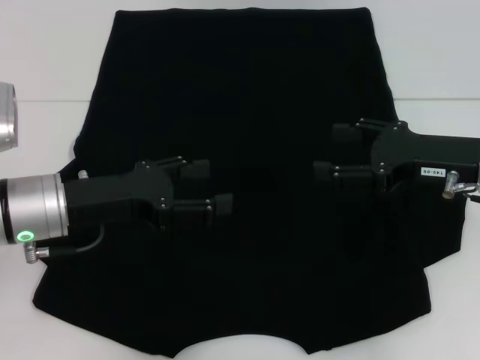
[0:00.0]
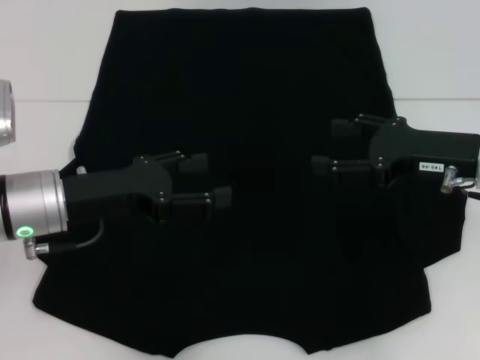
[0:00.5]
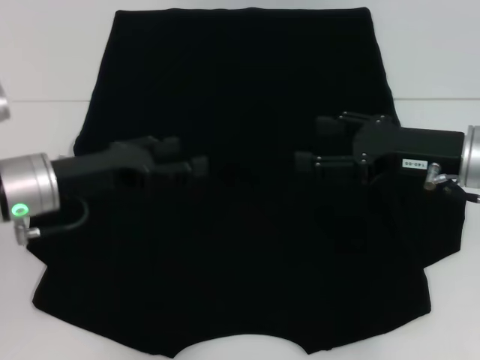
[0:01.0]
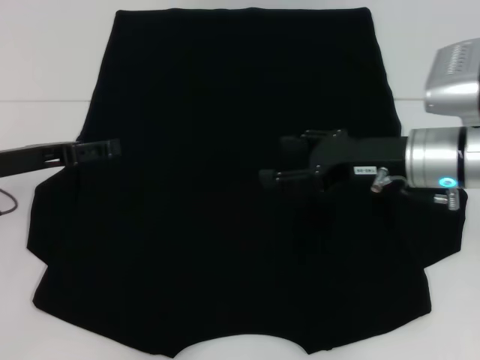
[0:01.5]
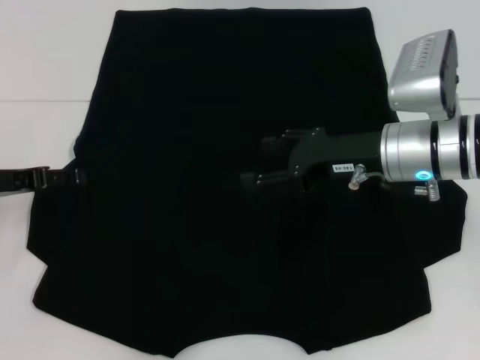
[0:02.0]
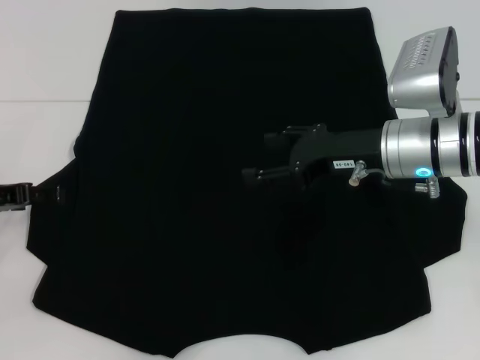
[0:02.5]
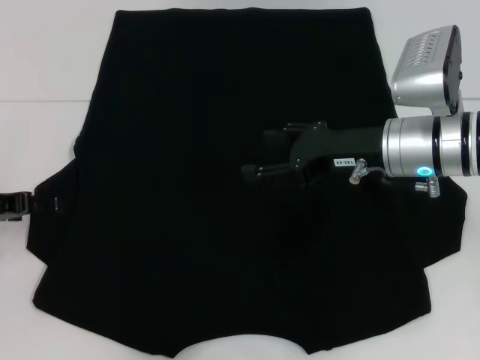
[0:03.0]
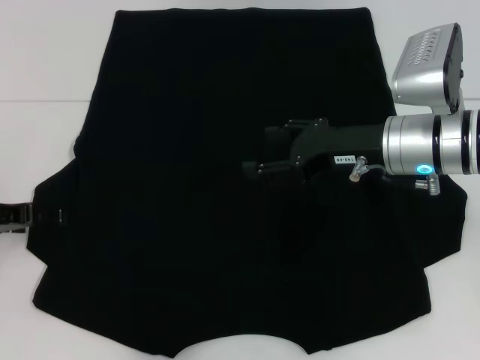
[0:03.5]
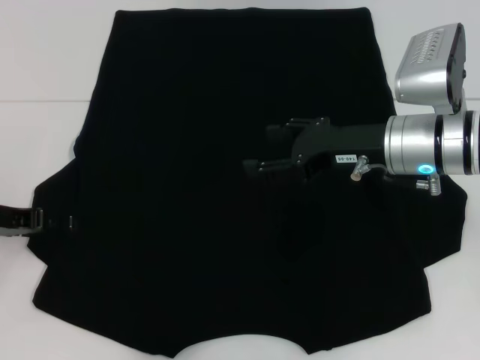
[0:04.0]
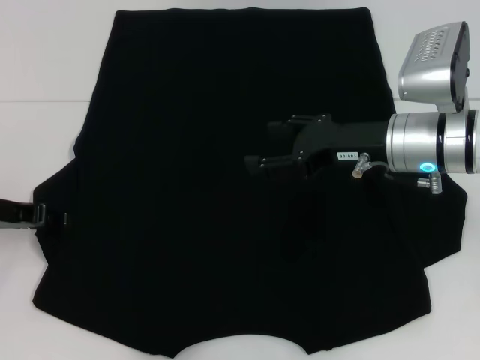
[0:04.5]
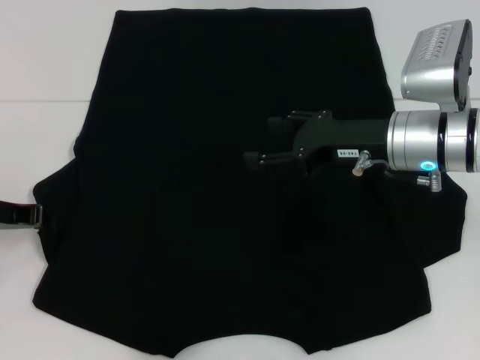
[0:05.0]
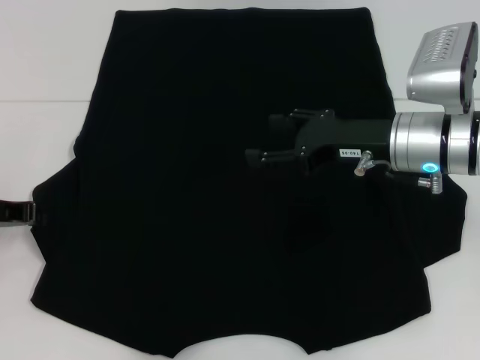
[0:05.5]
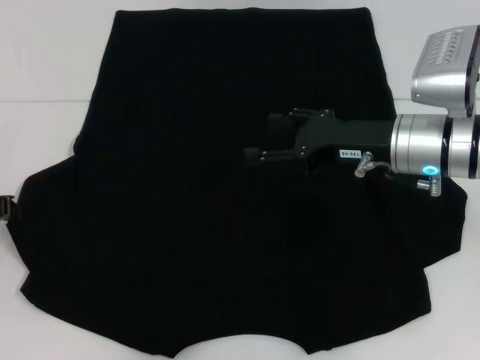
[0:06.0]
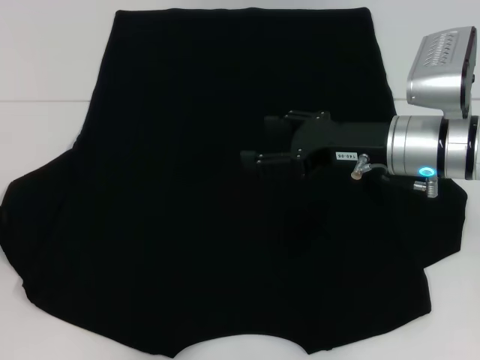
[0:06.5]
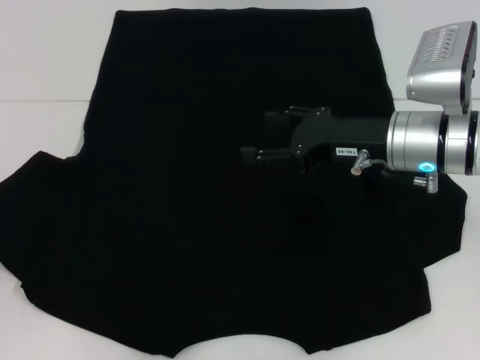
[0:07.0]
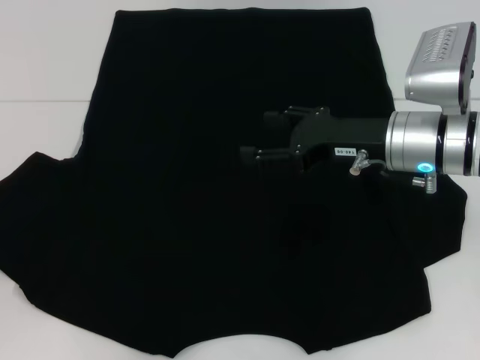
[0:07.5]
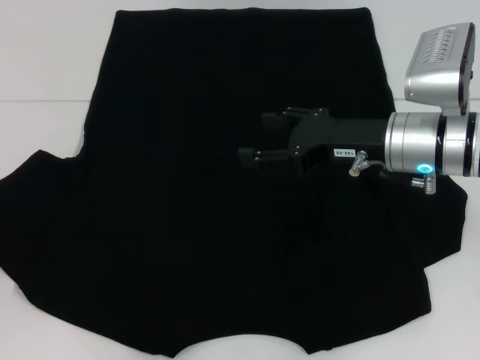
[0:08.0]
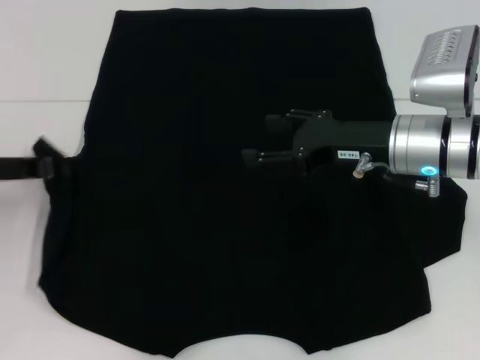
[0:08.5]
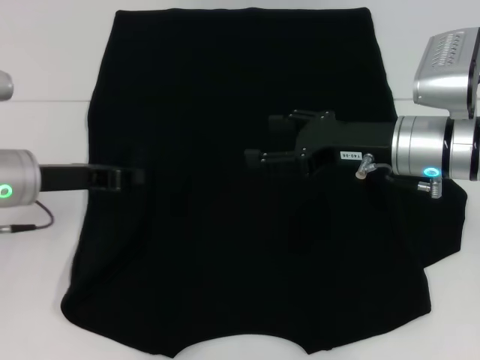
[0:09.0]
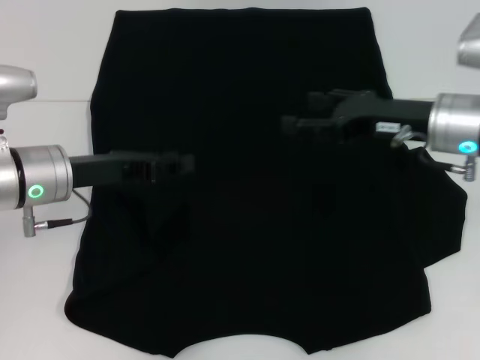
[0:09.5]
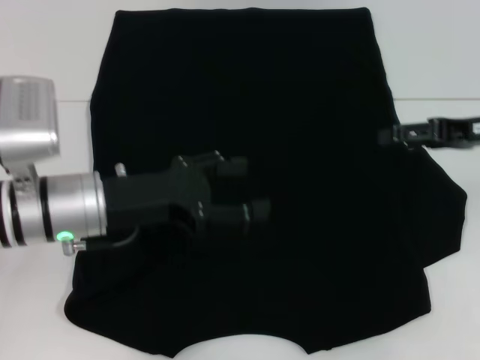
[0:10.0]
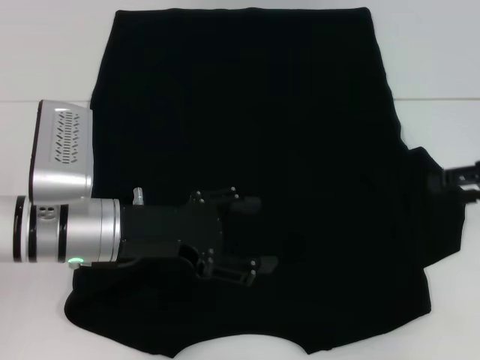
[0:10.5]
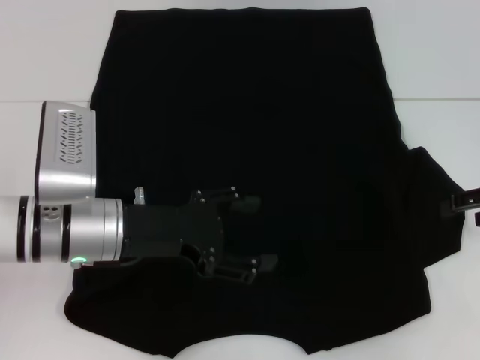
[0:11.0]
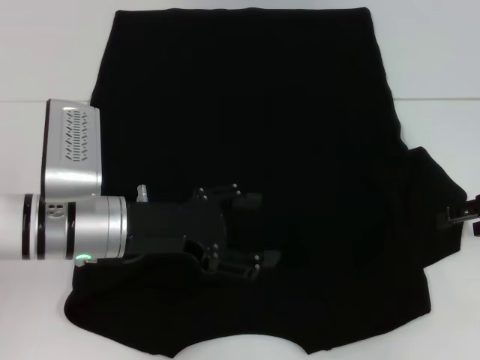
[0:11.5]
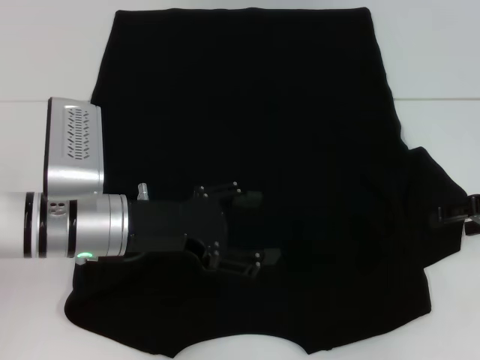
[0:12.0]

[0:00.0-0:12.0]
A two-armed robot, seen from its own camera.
Step, 0:00.0 to 0:09.5: Fold the bottom left sleeve with your left hand.
0:00.0 to 0:02.0: Both grippers travel together to the left, roughly 10 cm.
0:02.0 to 0:04.0: There are only small adjustments of the grippers.
0:04.0 to 0:06.0: The left gripper closes.
0:06.0 to 0:08.0: There are only small adjustments of the grippers.
0:08.0 to 0:10.0: Both grippers travel together to the right, some 15 cm. The left gripper opens its fingers.
0:10.0 to 0:12.0: The right gripper changes place by about 5 cm.

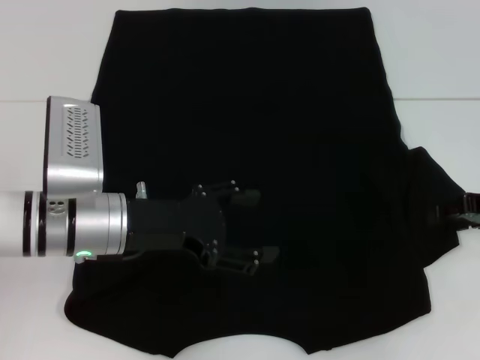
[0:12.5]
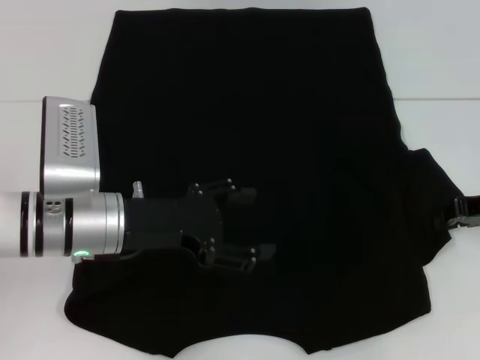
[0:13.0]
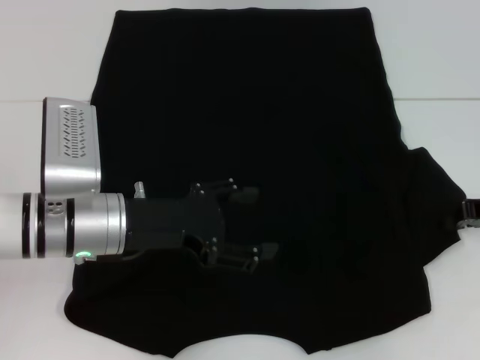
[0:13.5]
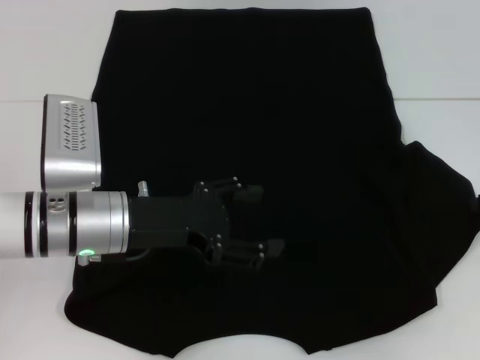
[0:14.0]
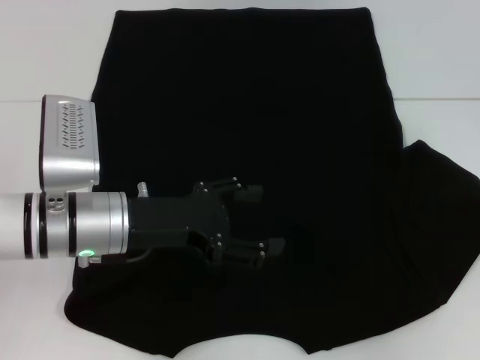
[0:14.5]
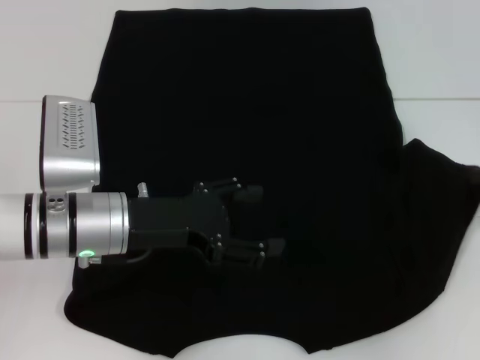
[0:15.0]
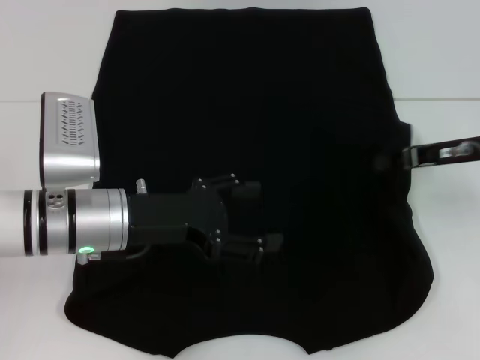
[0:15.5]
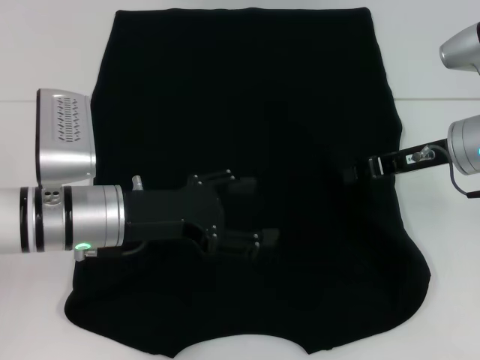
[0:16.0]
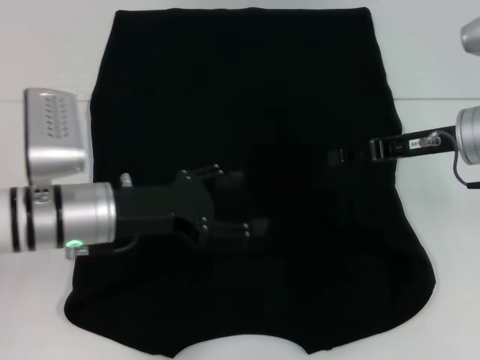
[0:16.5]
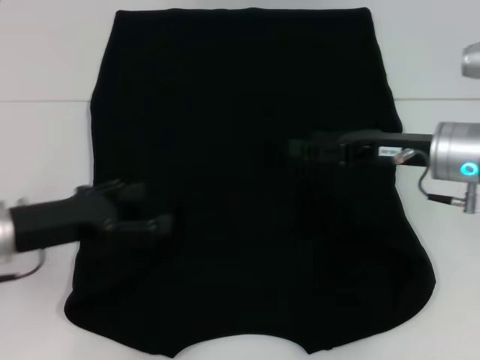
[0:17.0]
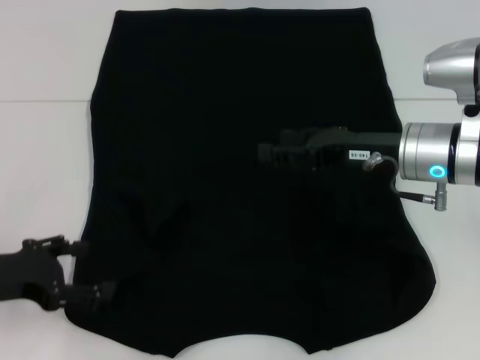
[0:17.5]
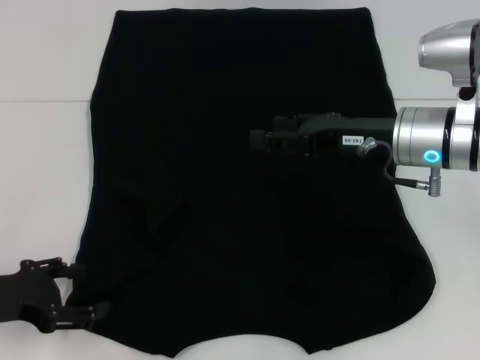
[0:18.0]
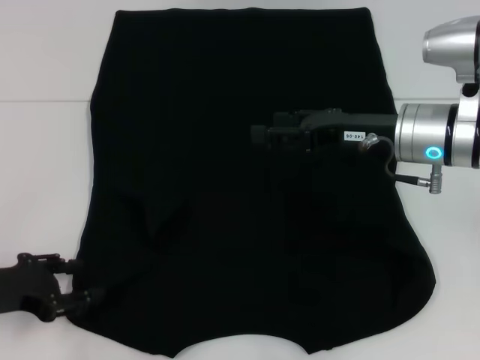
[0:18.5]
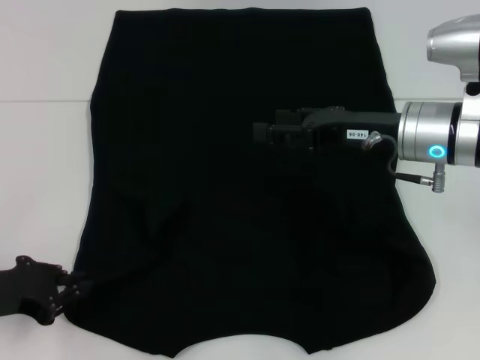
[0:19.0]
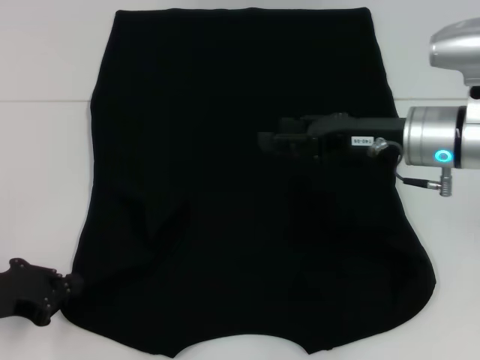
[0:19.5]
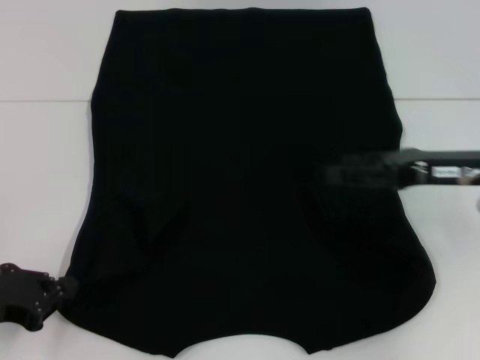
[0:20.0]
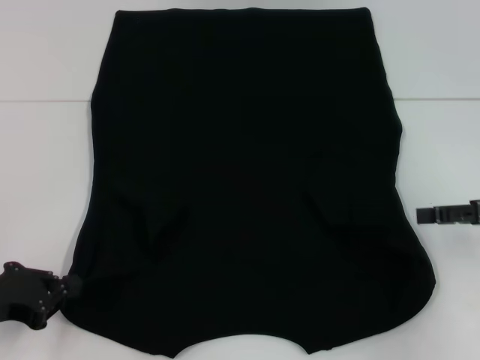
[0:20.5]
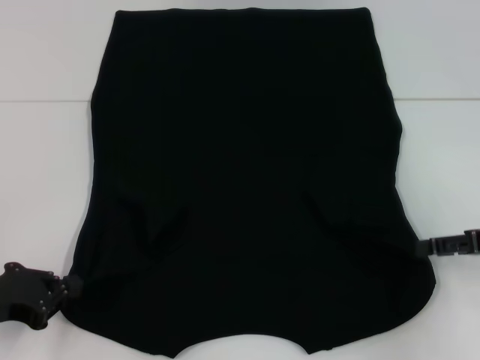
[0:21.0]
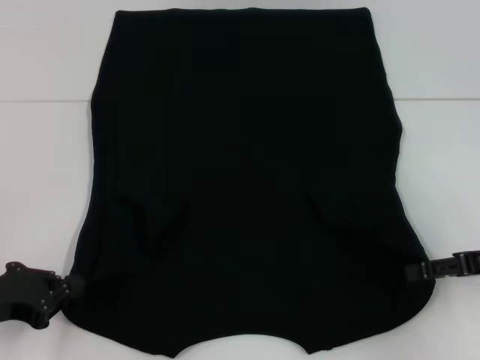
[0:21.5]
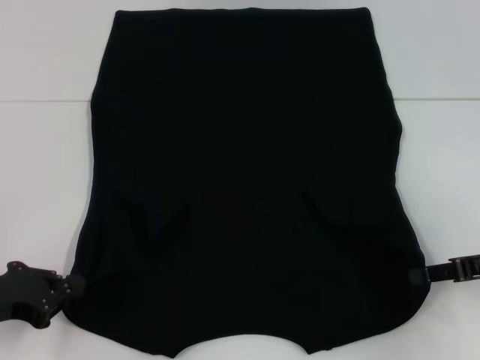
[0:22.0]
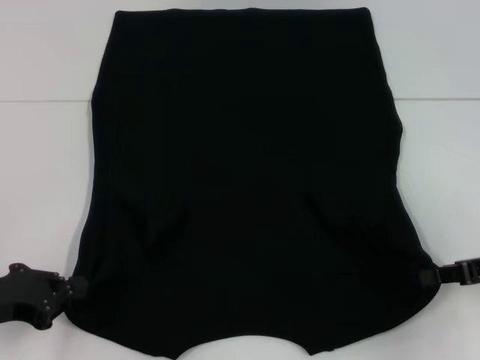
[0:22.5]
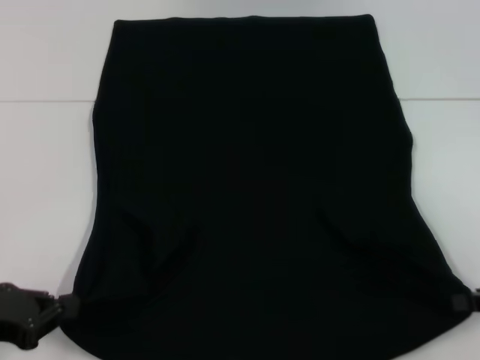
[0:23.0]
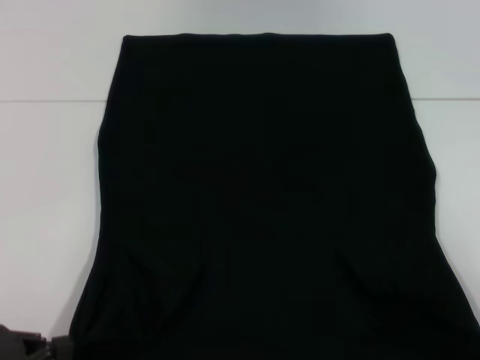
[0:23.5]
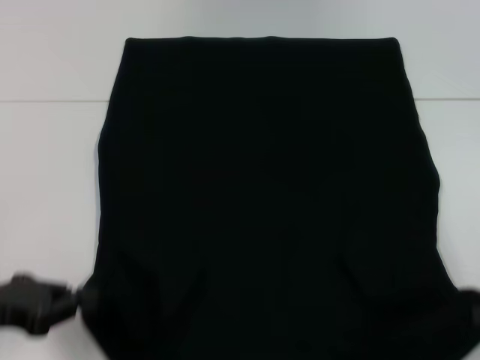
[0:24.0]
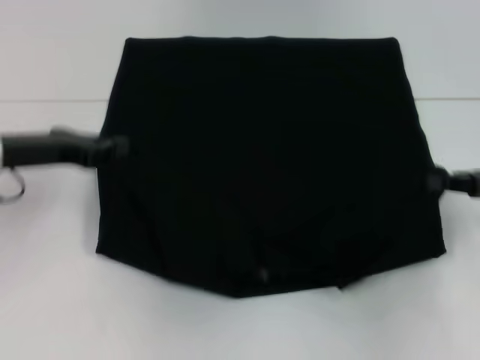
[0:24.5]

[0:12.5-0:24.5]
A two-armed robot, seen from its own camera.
Step, 0:12.5 to 0:16.5: Fold the bottom right sleeve with your right hand.
Step, 0:17.0 to 0:22.5: Grab the bottom left corner with your left hand.
Step, 0:17.0 to 0:22.5: Grab the bottom right corner with your right hand.
0:12.5 to 0:14.5: The right gripper closes up.
0:14.5 to 0:16.5: The right gripper goes approximately 15 cm to the left.
0:16.5 to 0:18.5: The right gripper is displaced to the left by some 5 cm, and opens up. Meanwhile the left gripper shifts some 15 cm to the left and backward.
0:18.5 to 0:20.5: The left gripper closes its fingers; the right gripper heads to the right, covering roughly 15 cm.
0:20.5 to 0:22.5: The right gripper closes its fingers.
0:22.5 to 0:24.5: The right gripper travels backward and back again, approximately 10 cm each way. Meanwhile the left gripper moves forward and upward, approximately 15 cm.

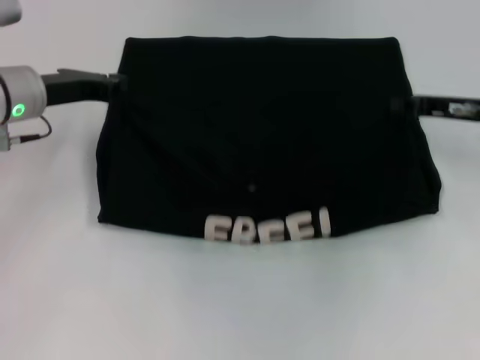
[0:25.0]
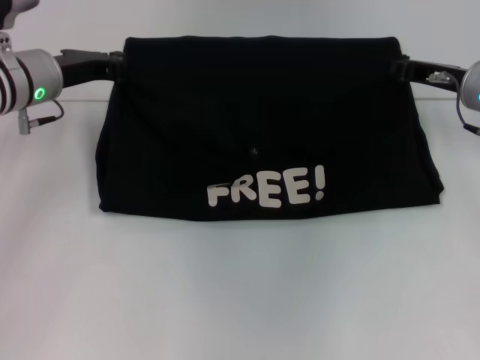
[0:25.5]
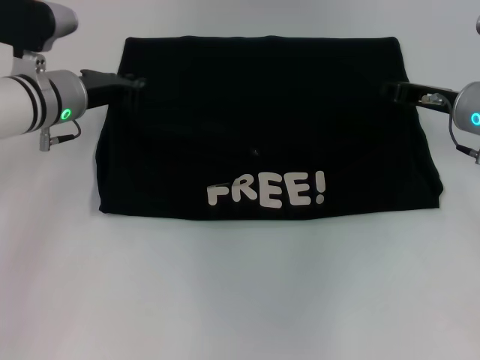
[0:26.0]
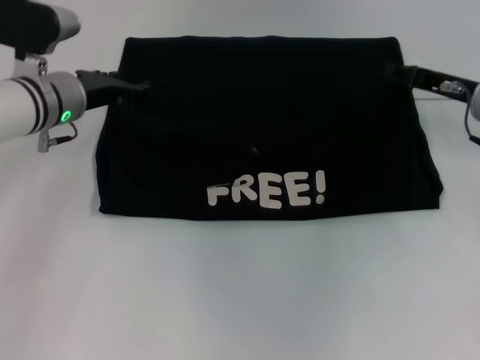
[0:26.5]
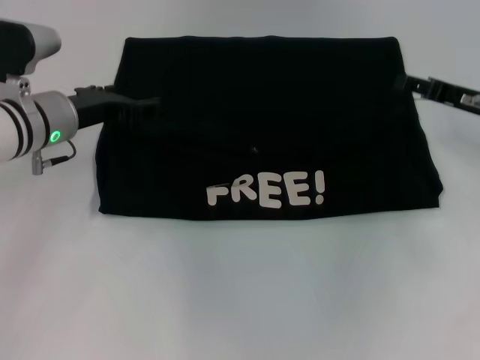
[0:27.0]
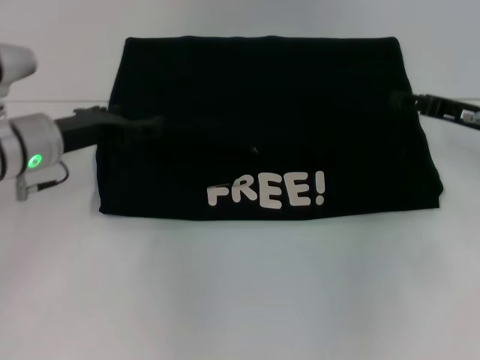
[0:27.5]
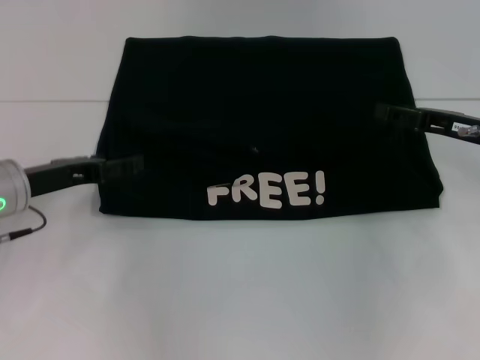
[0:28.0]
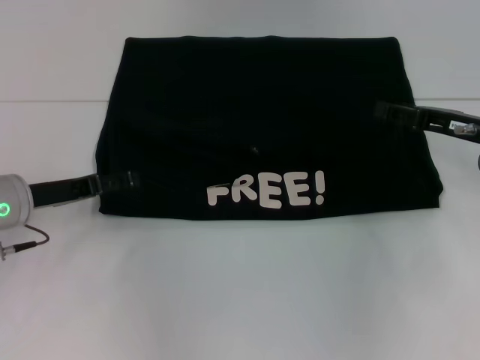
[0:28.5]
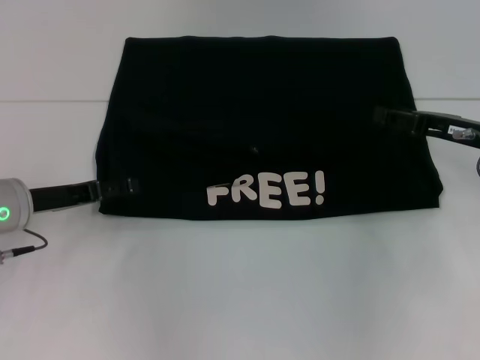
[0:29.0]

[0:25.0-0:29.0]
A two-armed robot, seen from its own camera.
Step, 0:25.0 to 0:27.0: Fold the clothes with your left hand.
Step, 0:25.0 to 0:27.0: Fold the clothes with your right hand.
0:25.0 to 0:27.0: The left gripper opens up; the right gripper opens.
0:27.0 to 0:29.0: The left gripper shifts about 5 cm backward.
